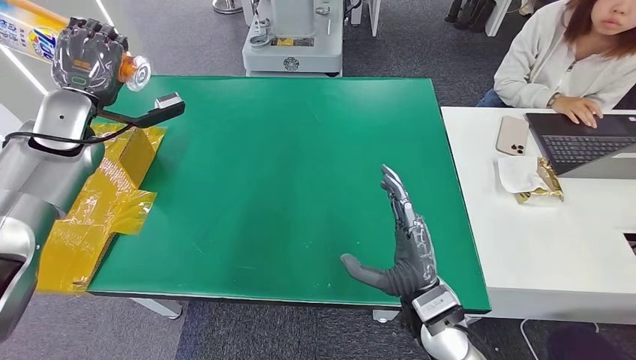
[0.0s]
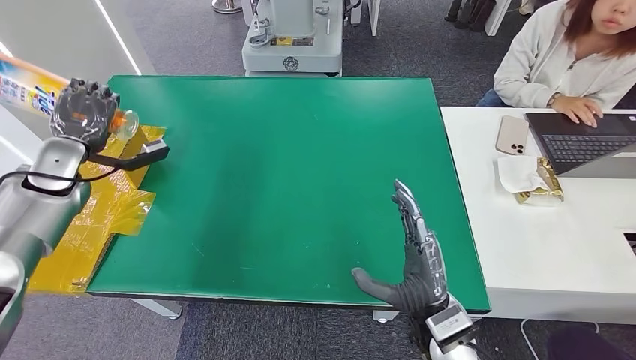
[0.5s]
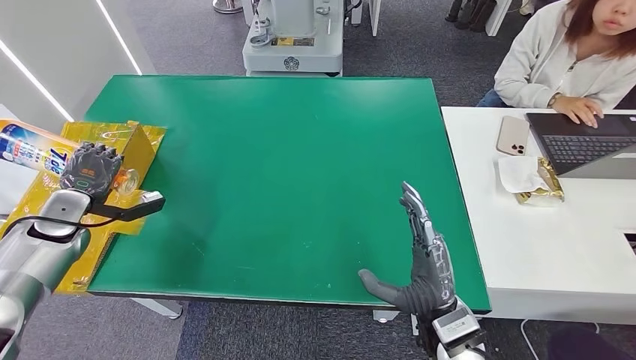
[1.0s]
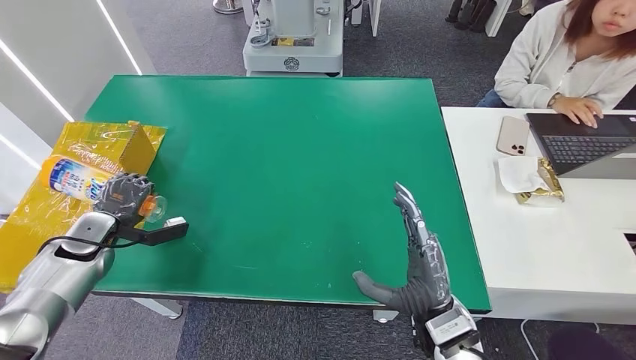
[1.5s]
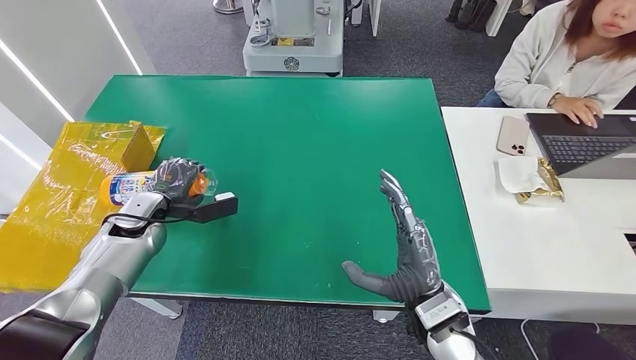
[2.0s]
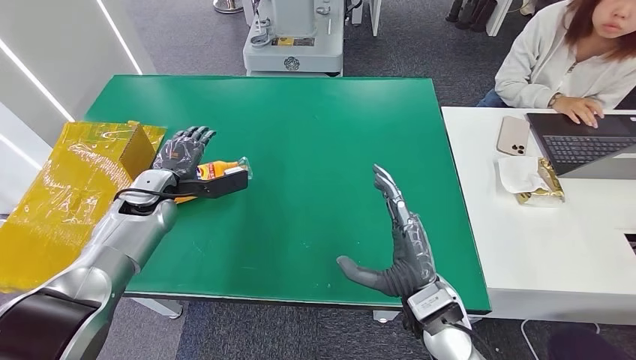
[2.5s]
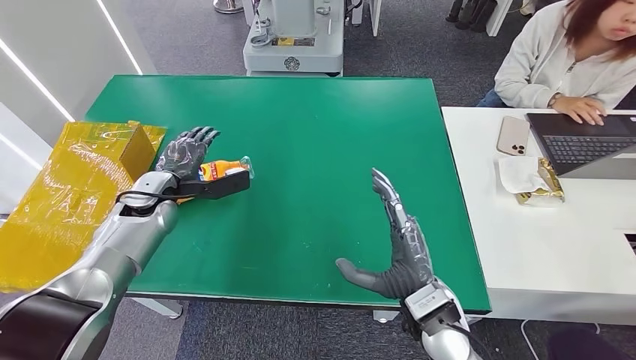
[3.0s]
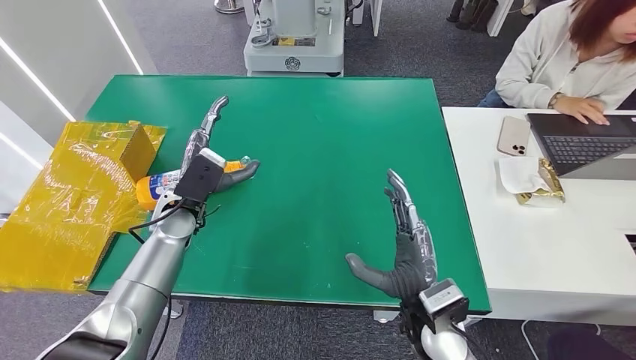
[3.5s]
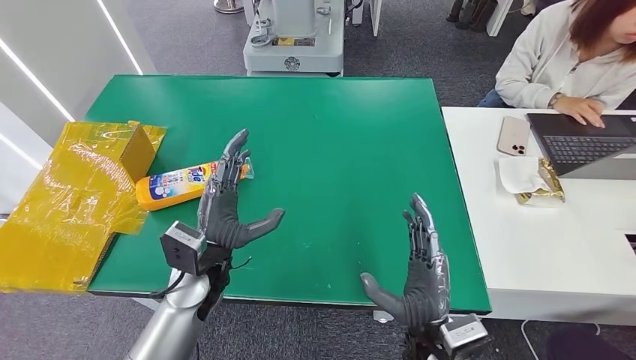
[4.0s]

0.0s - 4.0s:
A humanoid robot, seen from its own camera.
Step, 0.0s - 4.0s: Turn the bottle to the front side.
0.0s - 2.0s: The left hand goes approximately 20 cm downward.
2.0s - 4.0s: The left hand heads to the right and backward, covering approximately 20 cm. The right hand changes place by some 5 cm.
